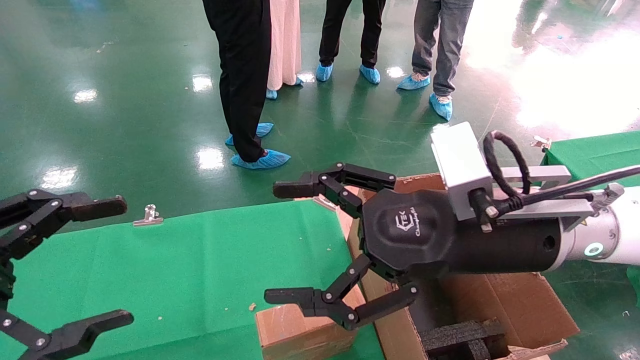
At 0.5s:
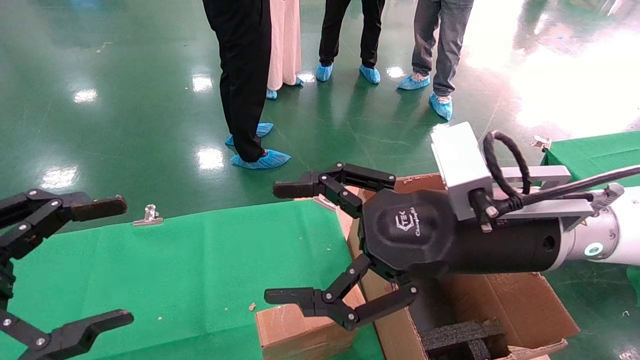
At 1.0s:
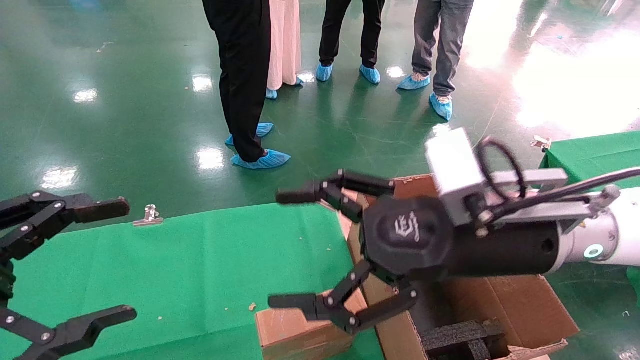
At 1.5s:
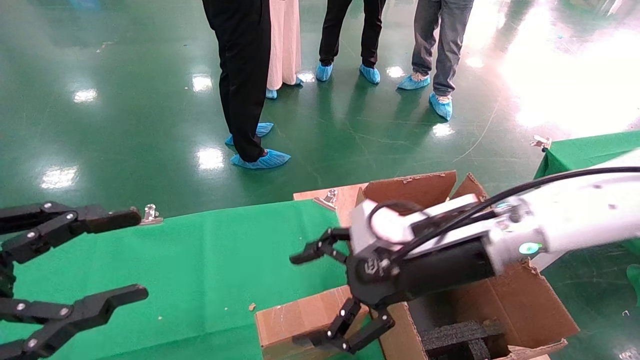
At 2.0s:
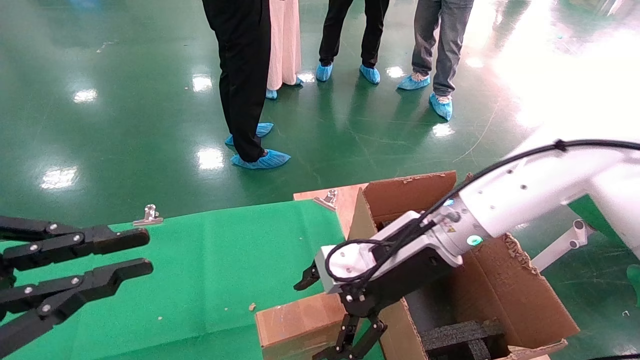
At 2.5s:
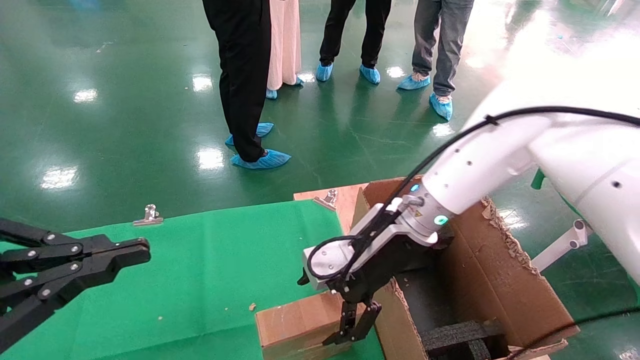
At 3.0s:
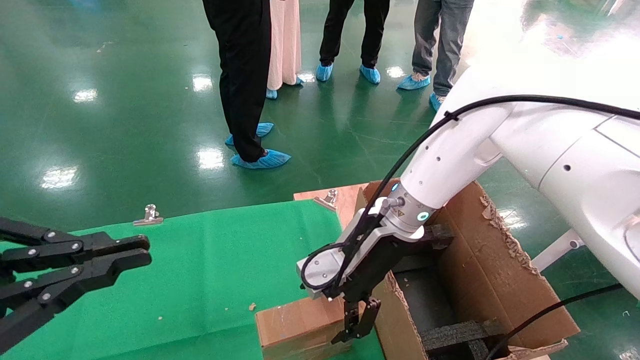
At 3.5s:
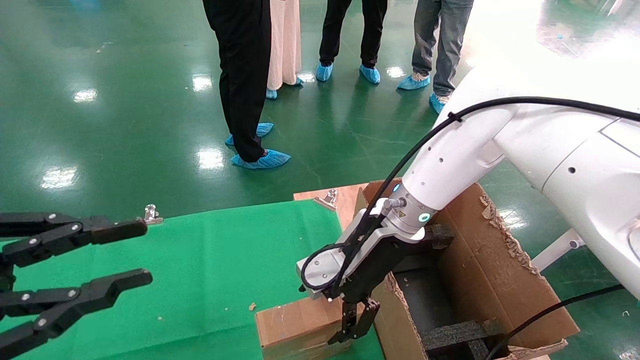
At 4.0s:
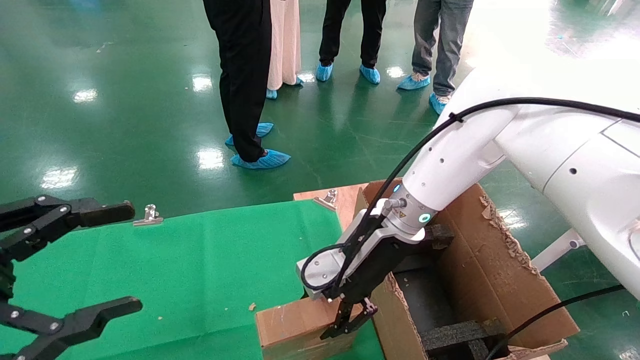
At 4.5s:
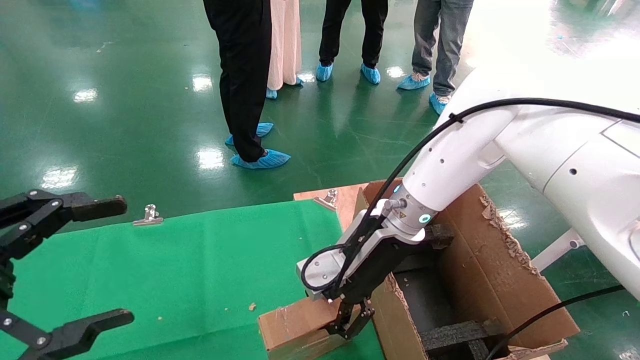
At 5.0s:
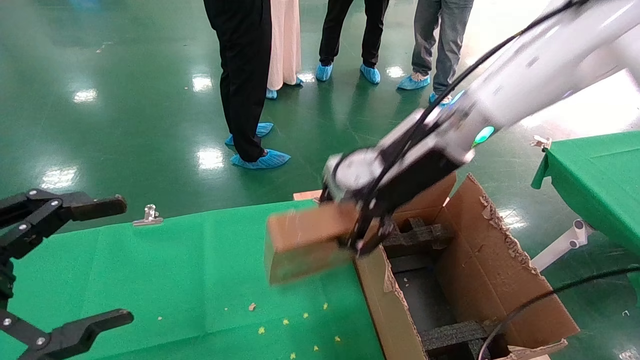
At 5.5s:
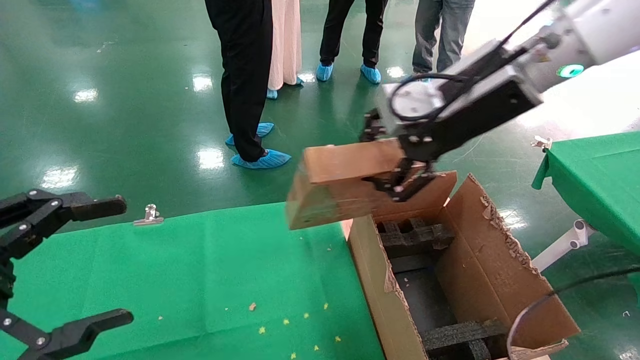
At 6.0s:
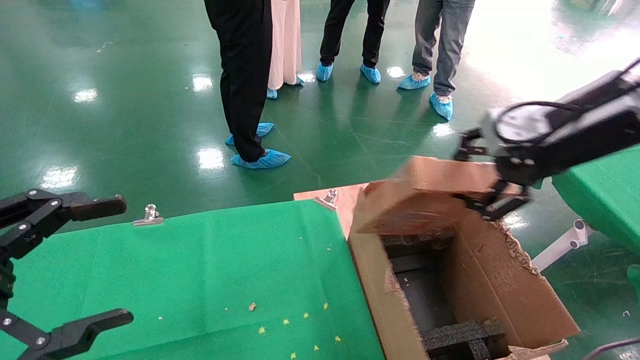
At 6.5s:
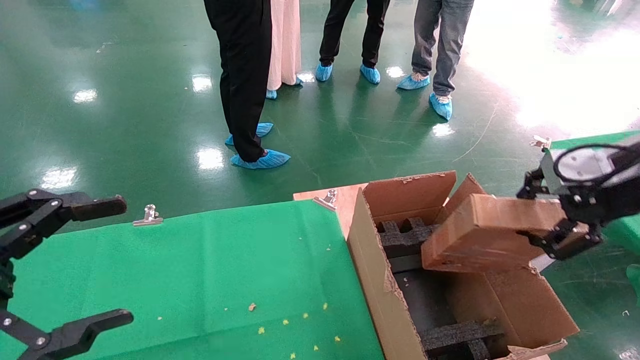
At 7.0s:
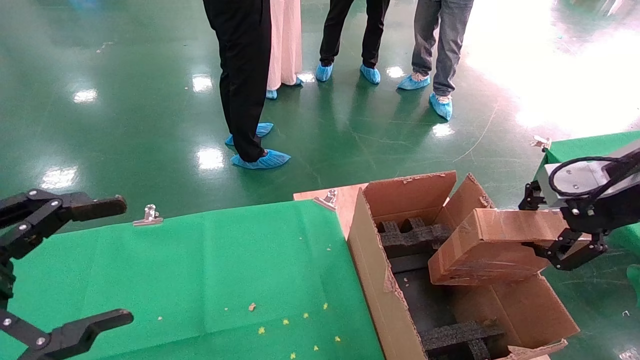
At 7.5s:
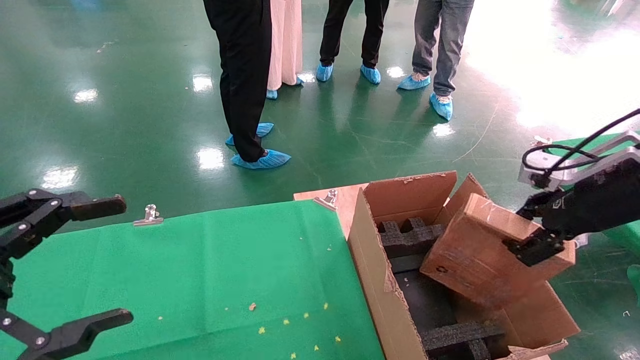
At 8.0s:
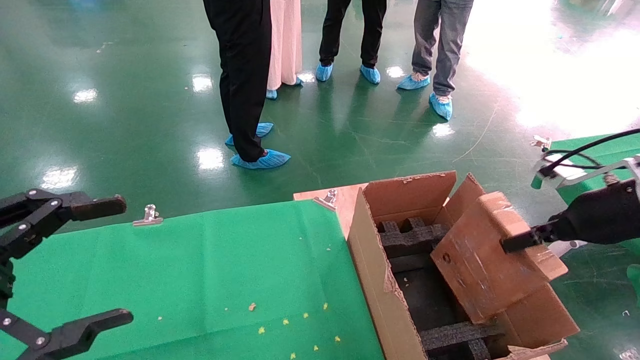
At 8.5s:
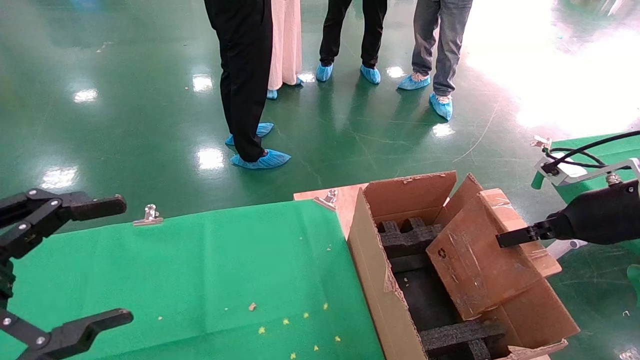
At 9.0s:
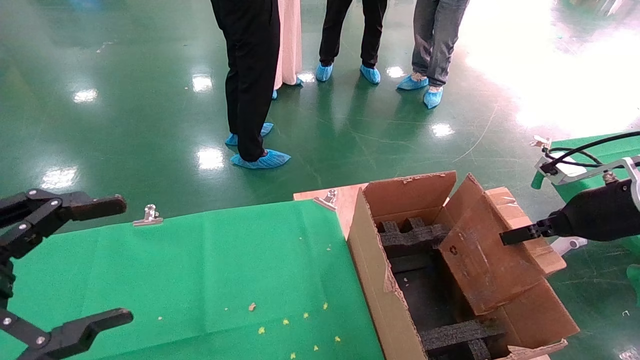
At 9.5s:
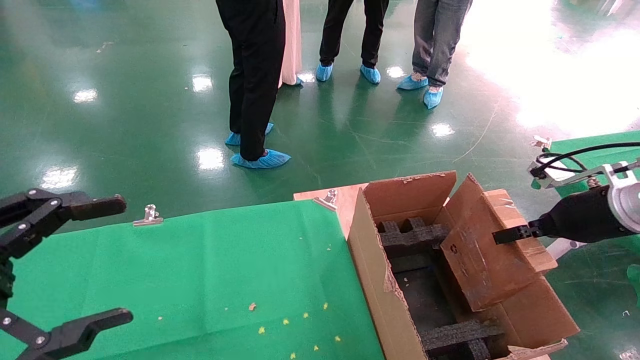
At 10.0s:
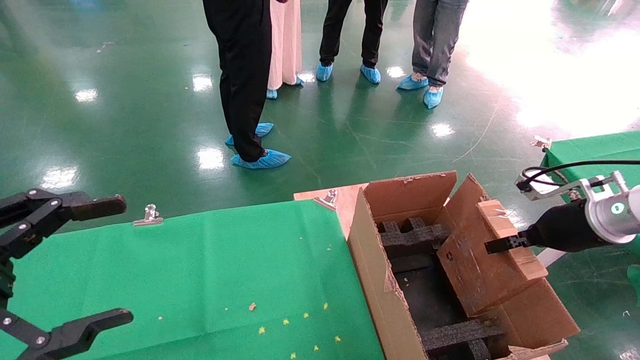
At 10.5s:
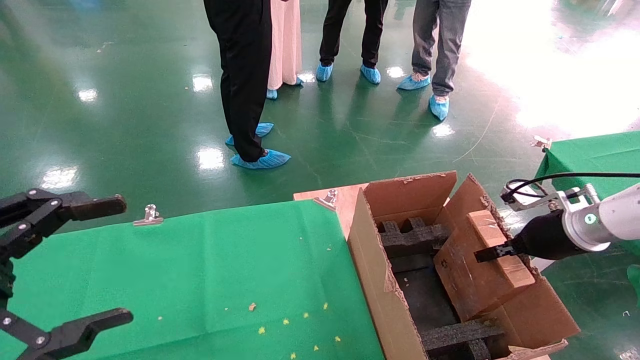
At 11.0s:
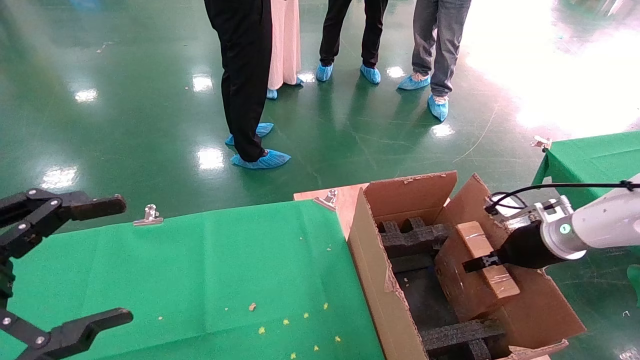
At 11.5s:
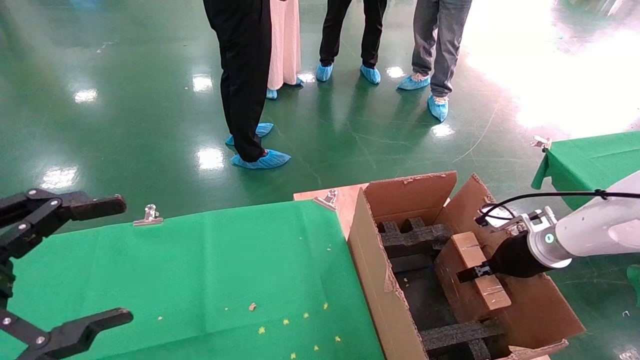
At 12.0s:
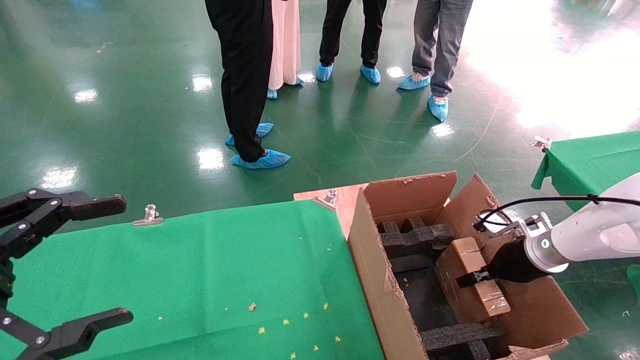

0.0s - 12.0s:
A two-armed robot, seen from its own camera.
Task of the whole recording: using a robotic arm to pick up a cardboard box and palace it the carton.
Step, 1.5s - 4.0s: Pick up the mouse and the power cord paper box.
0.0s - 2.0s: The right gripper heads forward and downward, covering some 10 cm. Meanwhile the left gripper closes.
2.0s - 4.0s: The right gripper ends up about 5 cm from where it was, and closes; the left gripper opens its fingers.
4.0s - 6.0s: The right gripper travels to the right, upward and backward by some 30 cm, and closes.
6.0s - 8.0s: The right gripper shifts some 15 cm downward and to the right.
8.0s - 10.0s: The right gripper shifts by some 5 cm.
10.0s - 12.0s: The right gripper travels downward and forward by approximately 10 cm.

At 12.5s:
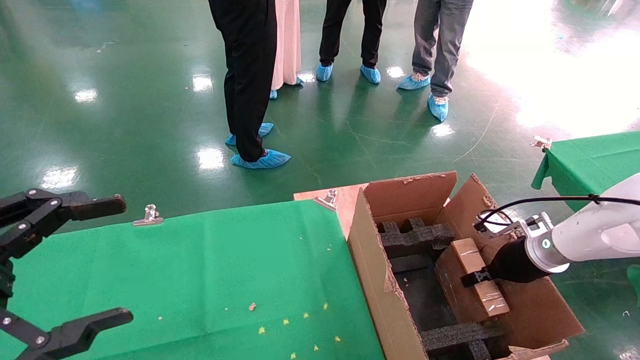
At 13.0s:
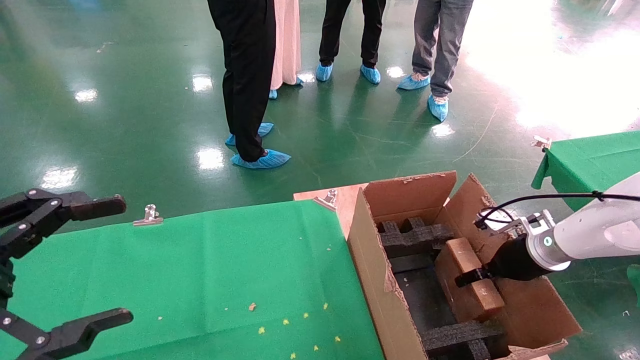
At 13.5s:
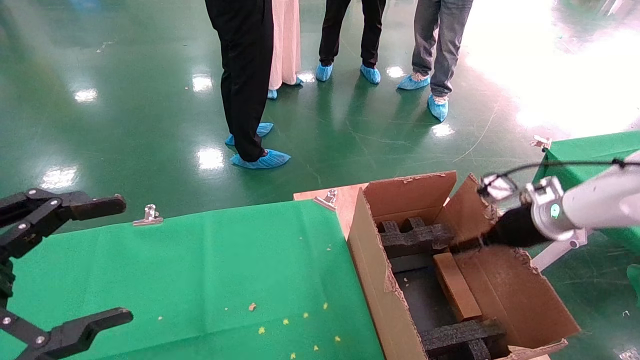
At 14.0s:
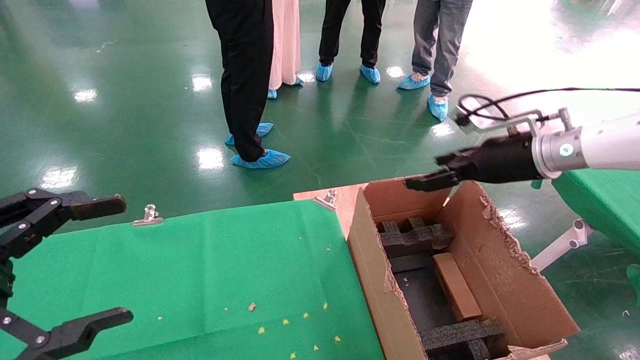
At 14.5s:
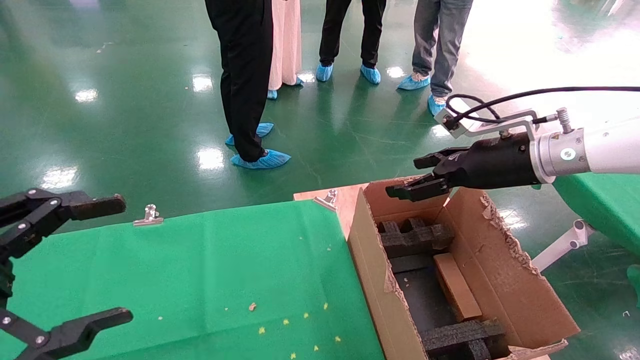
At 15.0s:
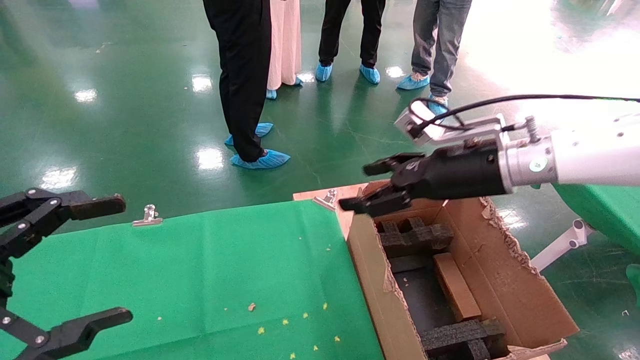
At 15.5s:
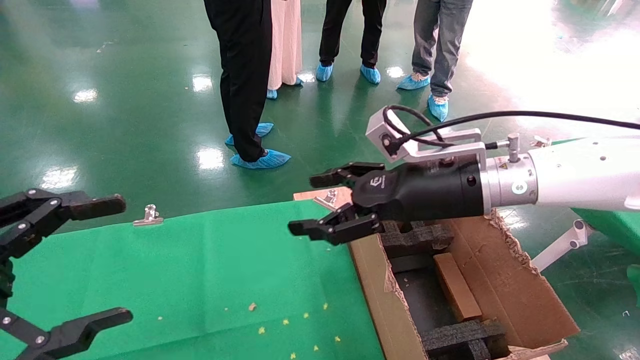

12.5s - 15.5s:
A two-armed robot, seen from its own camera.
Task of the whole recording: using a robotic arm to pick up a cardboard box and palace it the carton.
12.5s - 14.0s: The right gripper travels upward by roughly 15 cm, and opens its fingers.
14.0s - 15.5s: The right gripper is displaced to the left and backward by about 20 cm.

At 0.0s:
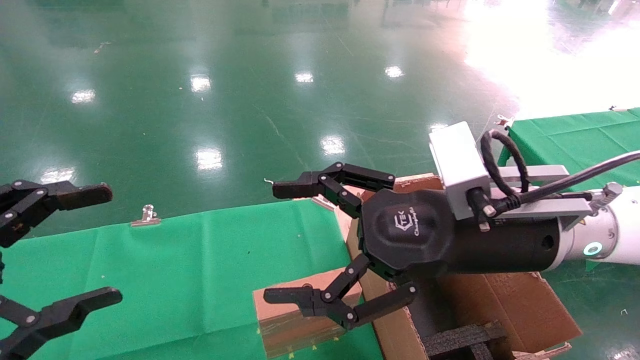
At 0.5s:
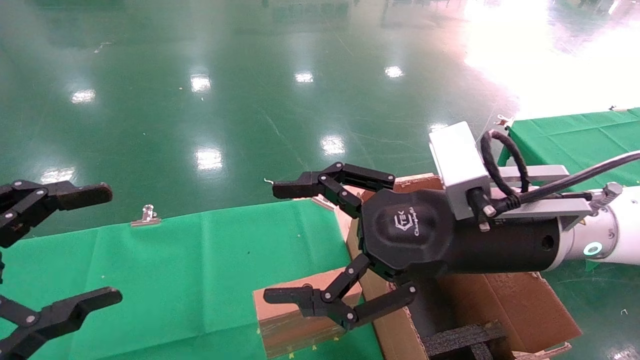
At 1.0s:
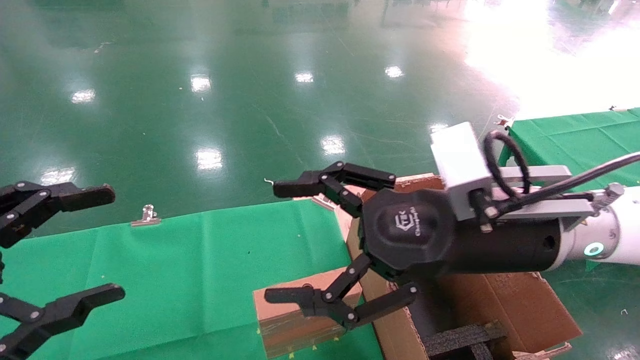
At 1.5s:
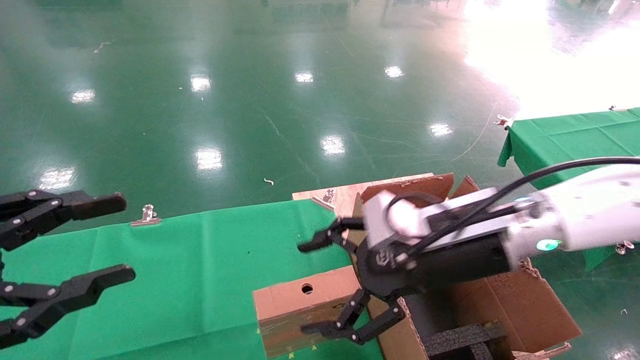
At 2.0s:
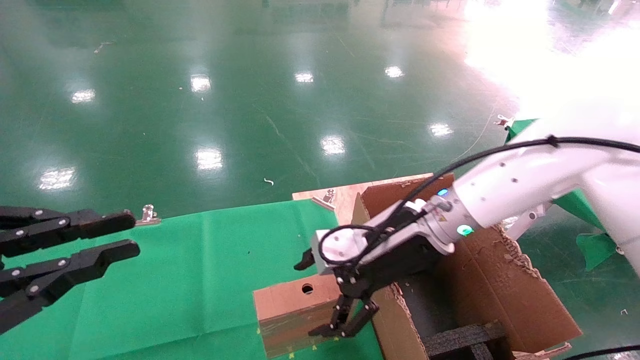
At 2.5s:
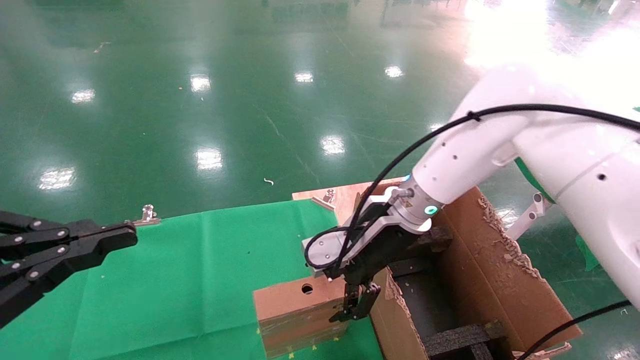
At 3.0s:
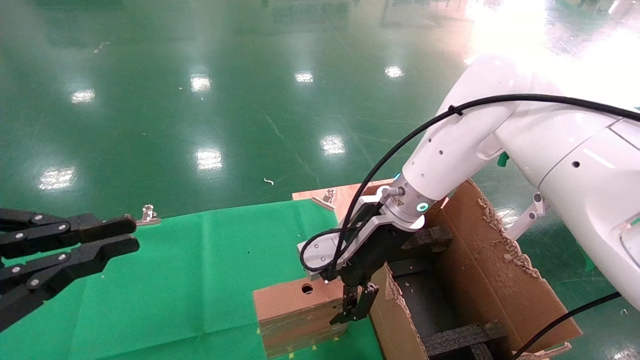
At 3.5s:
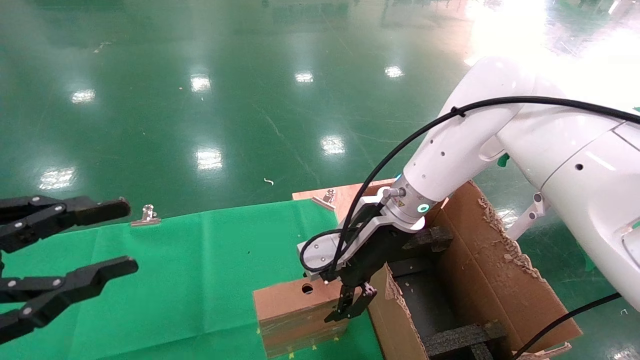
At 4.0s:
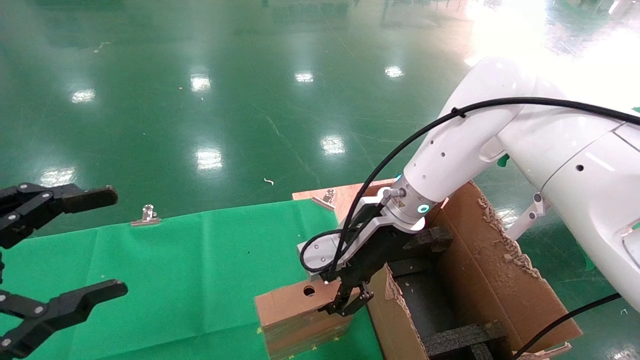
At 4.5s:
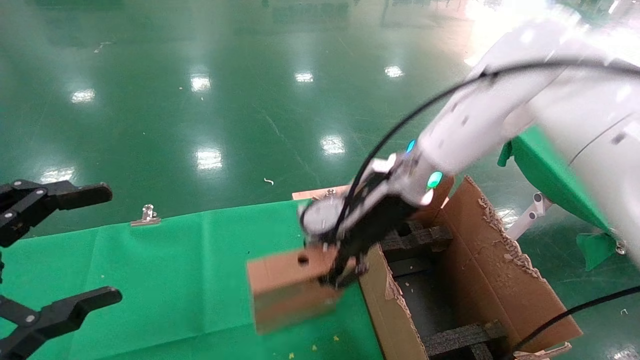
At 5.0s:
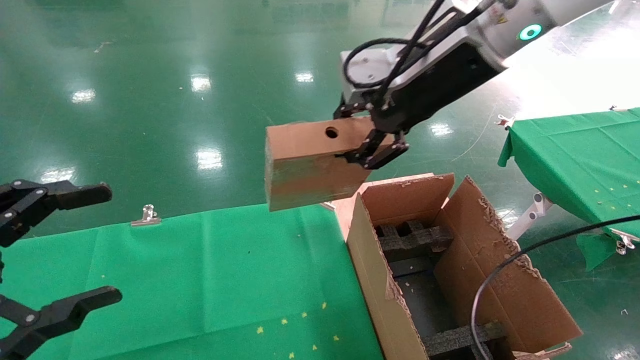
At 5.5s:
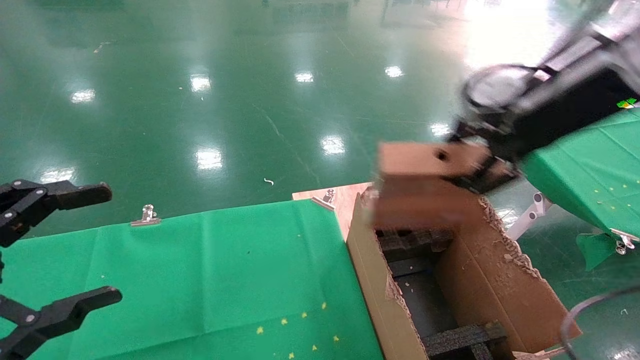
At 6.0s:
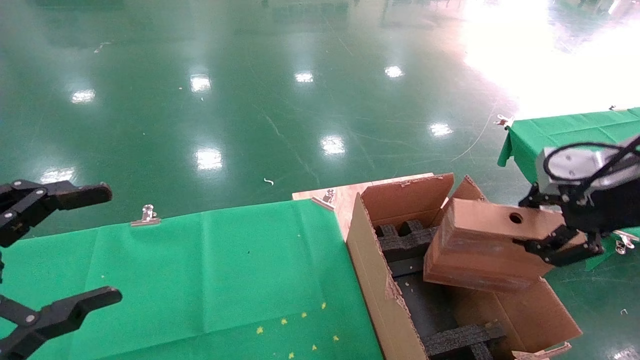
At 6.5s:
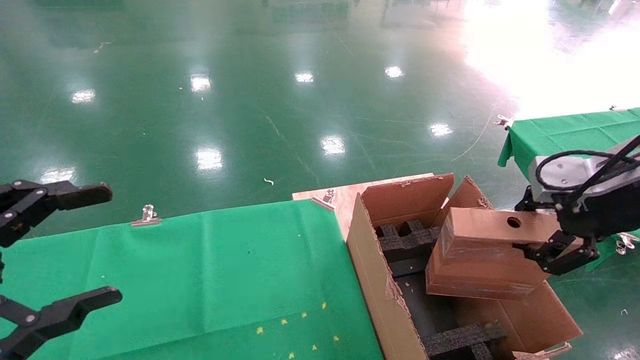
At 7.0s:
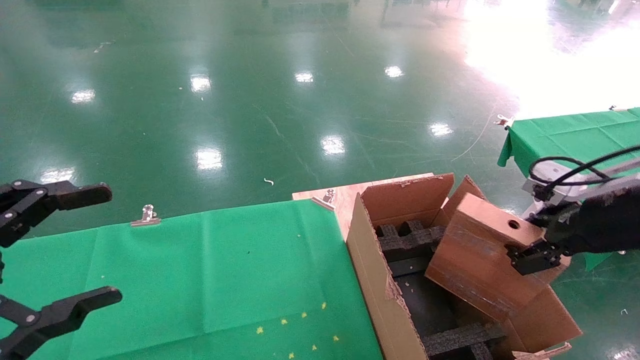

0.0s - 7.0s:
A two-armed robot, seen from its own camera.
Task of the whole recording: using a robotic arm to pick up a cardboard box and palace it the carton.
Step, 1.5s - 4.0s: Pick up the mouse and the power cord paper box.
0.0s - 2.0s: The right gripper shifts some 10 cm forward and downward; the left gripper closes.
3.5s - 5.0s: The left gripper opens up. Meanwhile the right gripper travels upward by approximately 20 cm, and closes.
5.0s - 7.0s: The right gripper heads to the right, downward and backward, covering some 25 cm.
